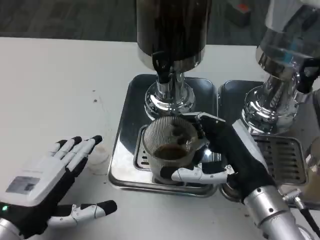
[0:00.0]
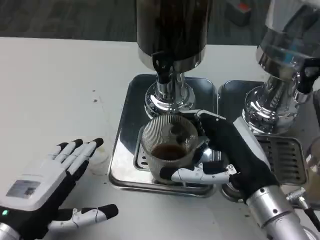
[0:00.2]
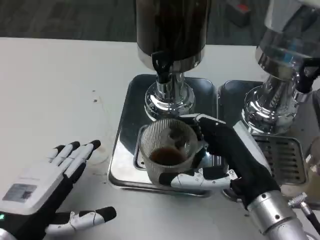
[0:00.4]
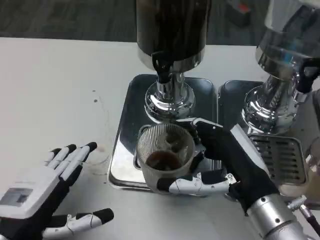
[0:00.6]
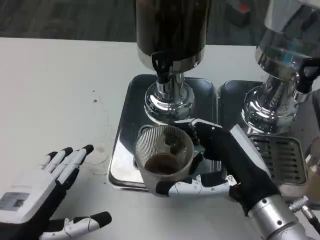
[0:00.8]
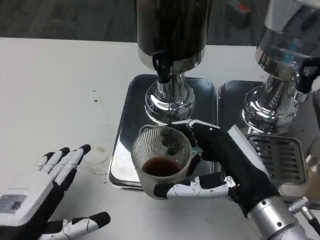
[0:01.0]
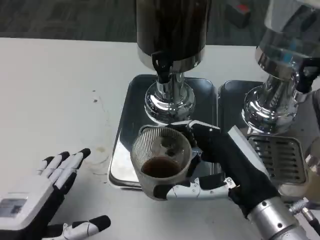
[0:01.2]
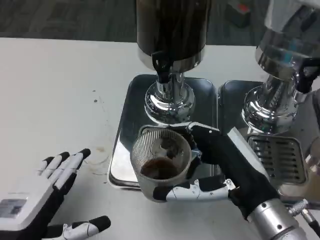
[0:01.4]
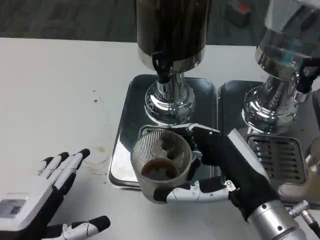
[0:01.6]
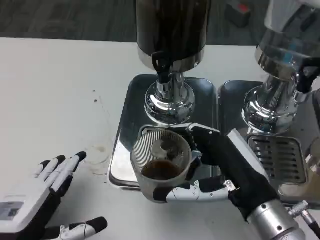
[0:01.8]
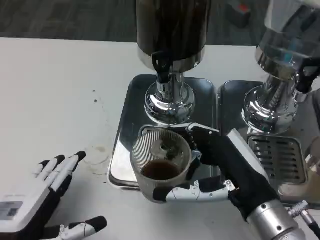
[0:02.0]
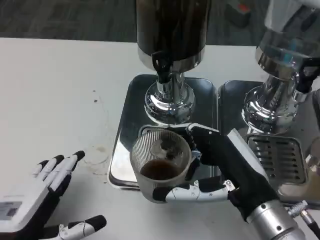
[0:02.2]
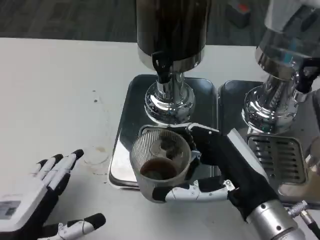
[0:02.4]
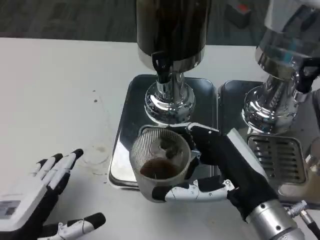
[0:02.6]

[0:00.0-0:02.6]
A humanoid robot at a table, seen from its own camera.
Task of the whole recording: Grasp the cup under the faucet to collect the drink, then remove the cup.
0:01.2 to 0:02.6: Neither hand changes place.

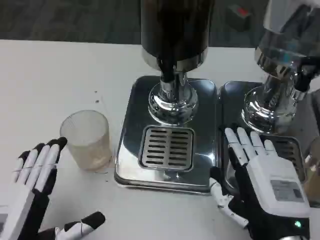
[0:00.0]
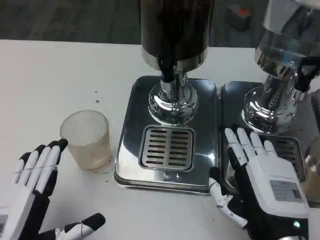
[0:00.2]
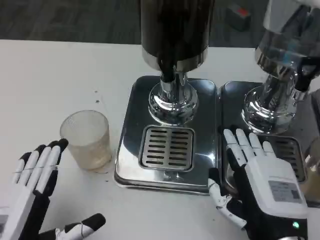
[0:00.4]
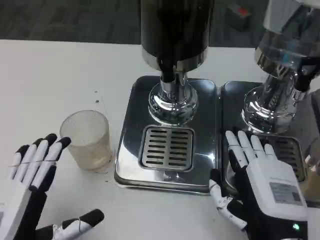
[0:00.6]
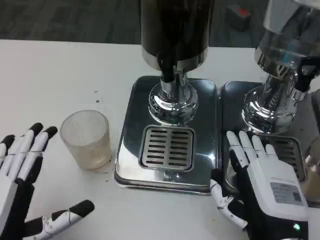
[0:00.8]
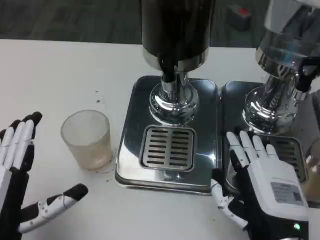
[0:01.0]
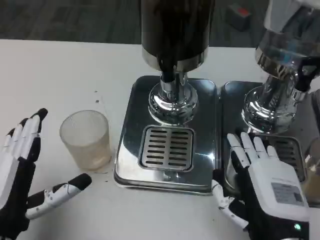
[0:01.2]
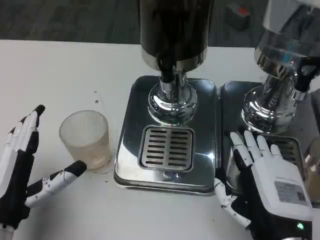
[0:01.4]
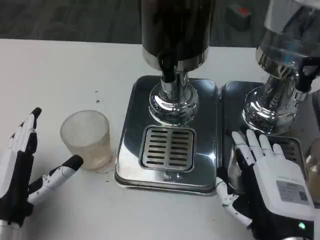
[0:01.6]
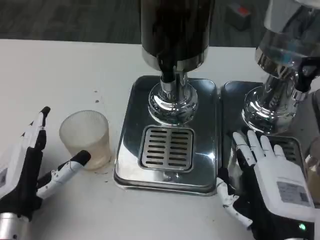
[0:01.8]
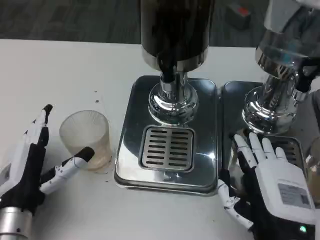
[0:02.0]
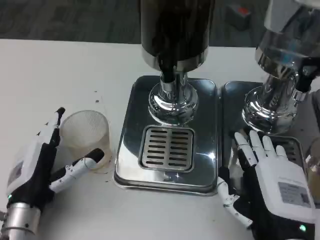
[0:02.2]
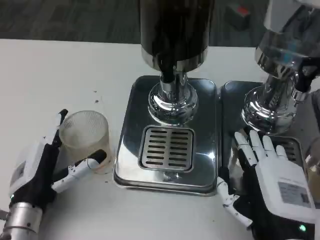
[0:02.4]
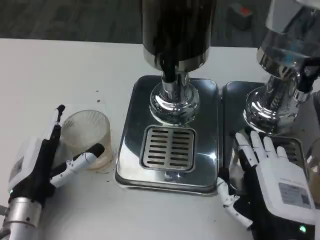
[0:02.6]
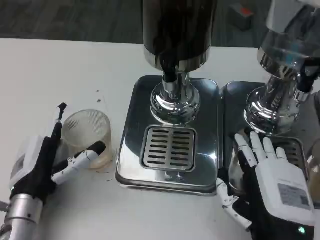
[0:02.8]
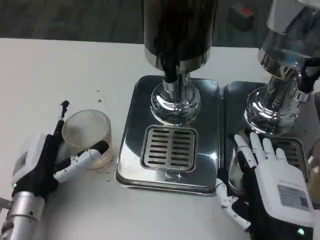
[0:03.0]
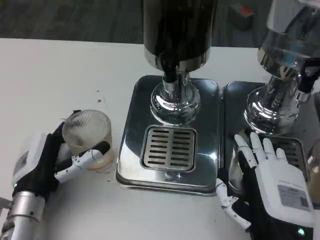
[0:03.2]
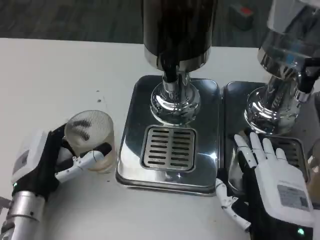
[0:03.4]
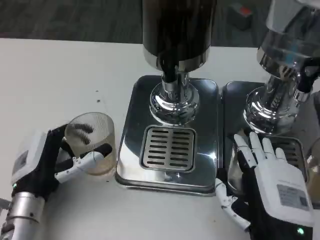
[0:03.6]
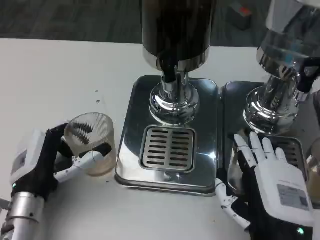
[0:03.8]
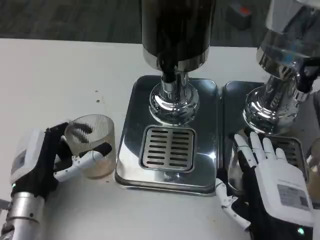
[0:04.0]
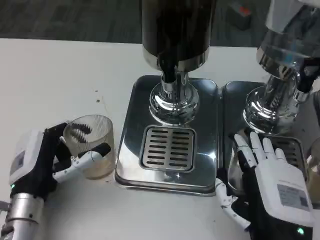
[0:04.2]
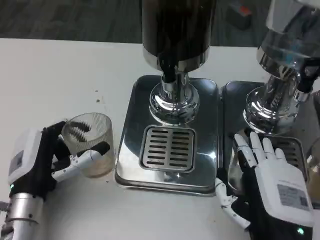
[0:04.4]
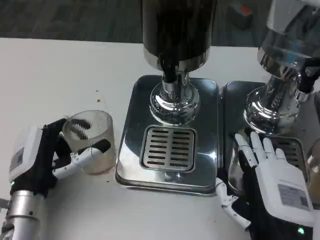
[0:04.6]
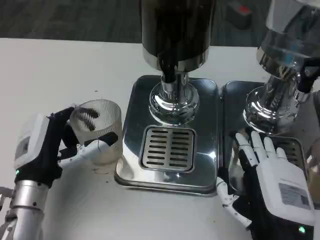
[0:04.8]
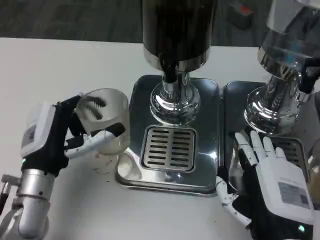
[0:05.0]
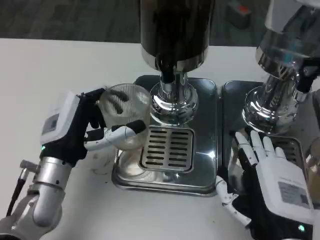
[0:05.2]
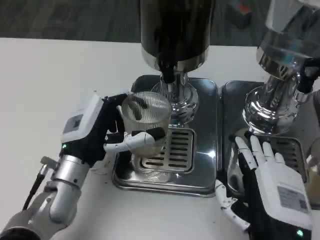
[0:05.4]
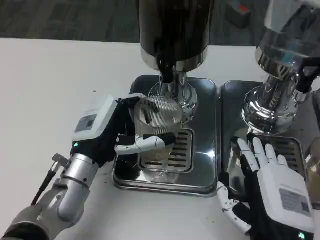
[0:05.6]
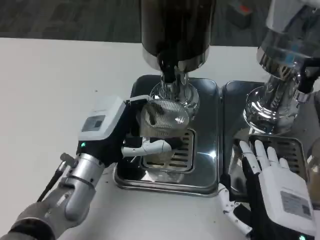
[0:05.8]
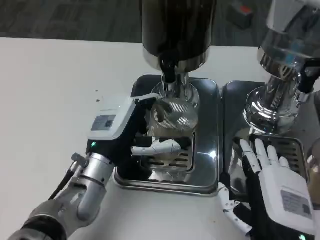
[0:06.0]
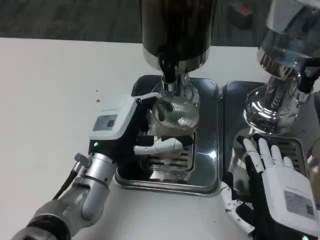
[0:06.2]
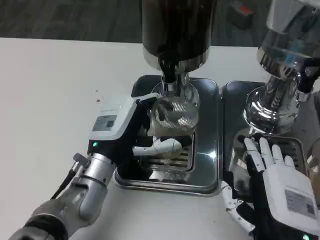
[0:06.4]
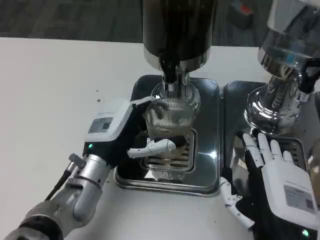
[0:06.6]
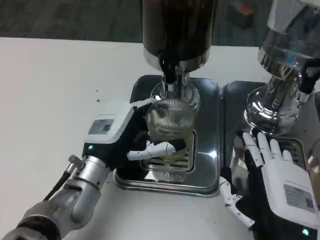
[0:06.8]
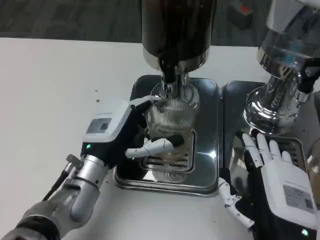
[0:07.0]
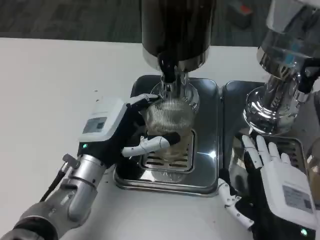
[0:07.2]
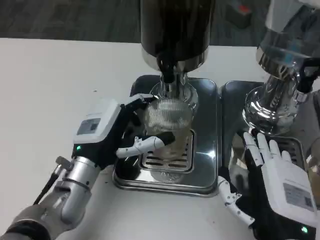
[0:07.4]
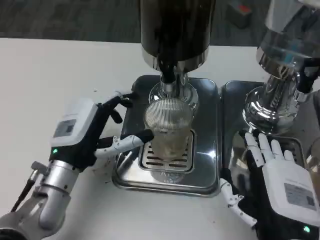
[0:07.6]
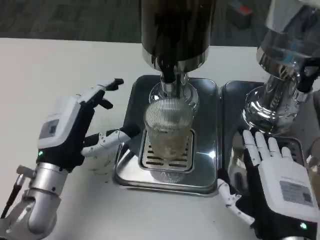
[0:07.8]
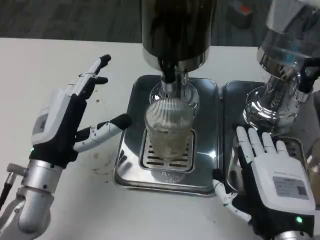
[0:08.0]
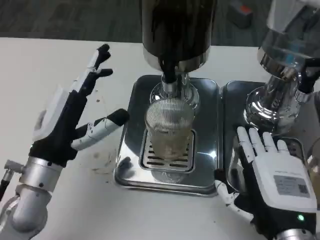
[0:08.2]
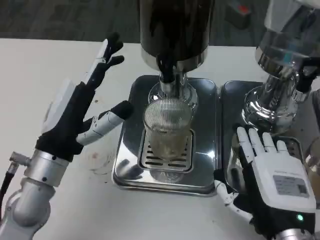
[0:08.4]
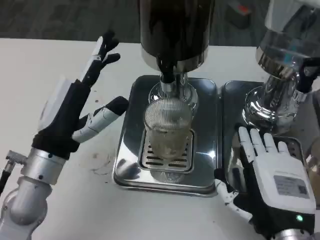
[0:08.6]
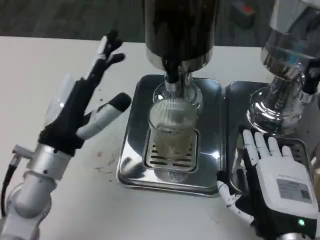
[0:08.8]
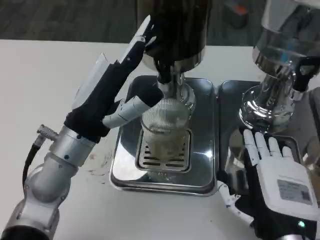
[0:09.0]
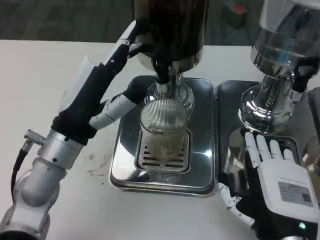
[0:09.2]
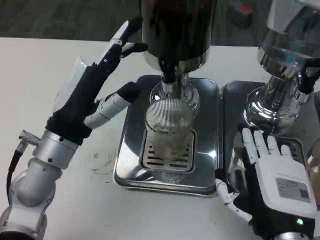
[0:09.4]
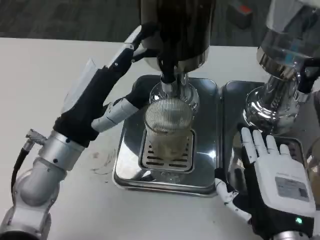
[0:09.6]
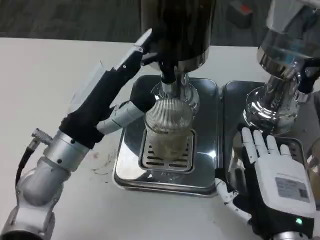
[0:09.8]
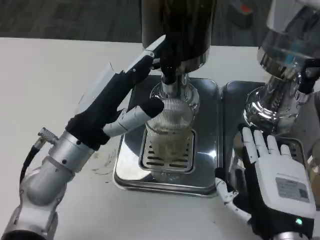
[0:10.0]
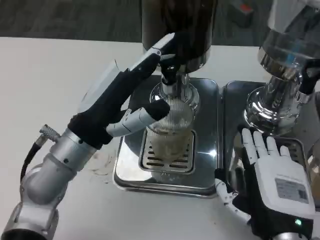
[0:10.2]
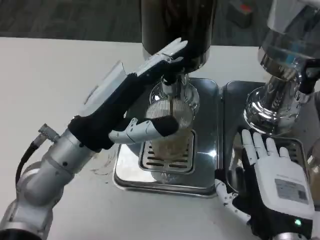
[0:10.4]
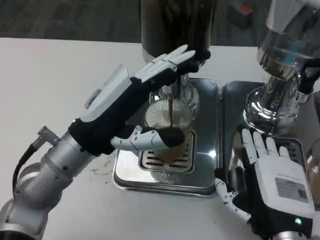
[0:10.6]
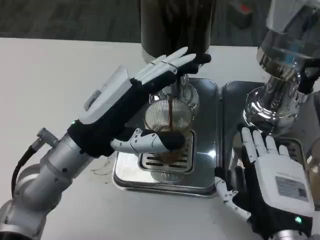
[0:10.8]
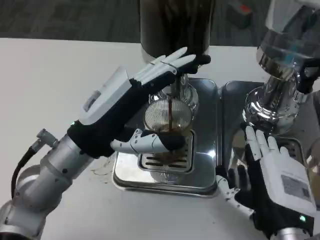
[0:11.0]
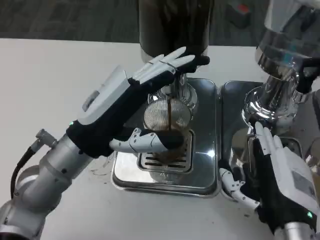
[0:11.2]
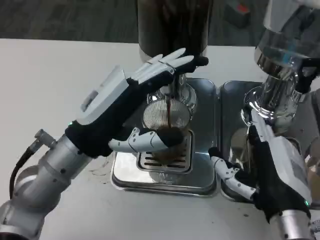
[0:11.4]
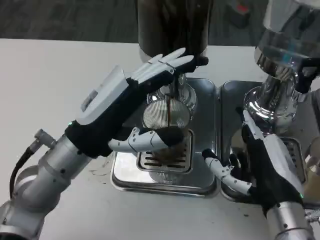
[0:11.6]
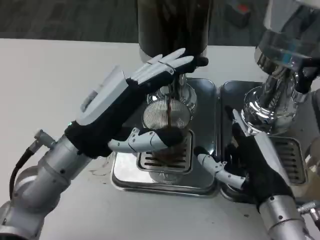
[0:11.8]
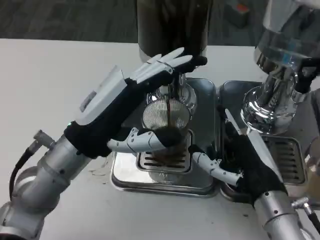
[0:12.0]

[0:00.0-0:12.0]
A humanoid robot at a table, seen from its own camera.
Task of the whole recording: Grasp the cup under the faucet to collect the drink, then remove the cup.
0:00.0 to 0:01.6: The left hand moves forward, some 5 cm.
0:01.6 to 0:03.0: The left hand ends up approximately 5 cm from where it was.
0:03.0 to 0:04.4: There are only small adjustments of the hands.
0:04.4 to 0:06.0: The left hand is displaced to the right and forward by approximately 10 cm.
0:06.0 to 0:07.6: The left hand is displaced to the left by about 5 cm.
0:07.6 to 0:09.0: The left hand moves upward, some 5 cm.
0:10.4 to 0:12.0: The right hand goes approximately 5 cm forward.

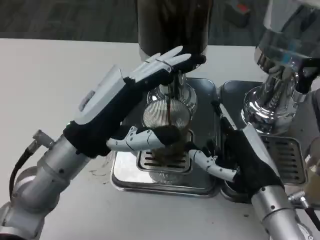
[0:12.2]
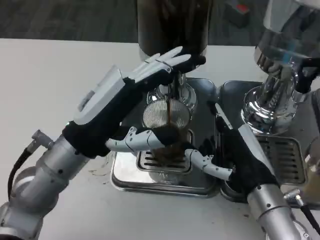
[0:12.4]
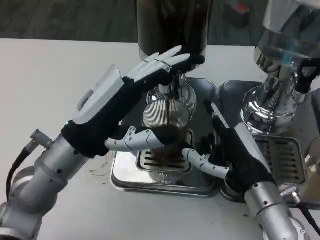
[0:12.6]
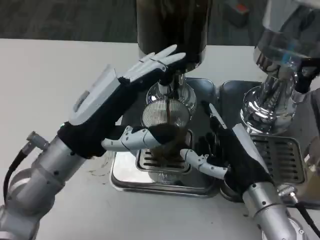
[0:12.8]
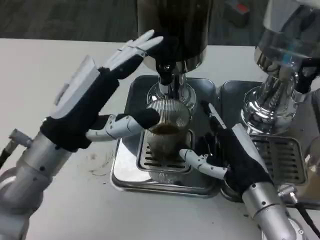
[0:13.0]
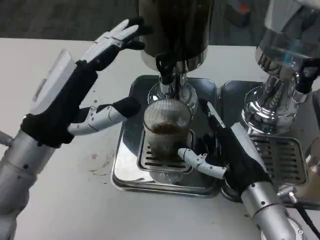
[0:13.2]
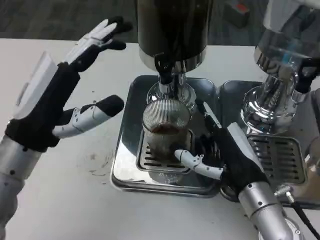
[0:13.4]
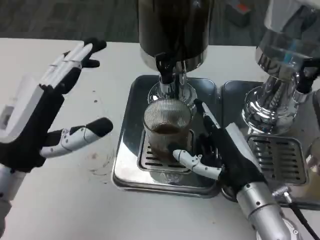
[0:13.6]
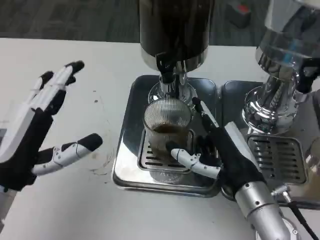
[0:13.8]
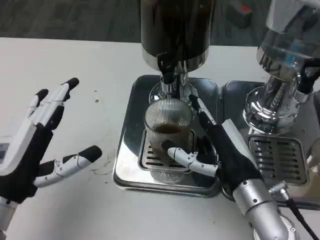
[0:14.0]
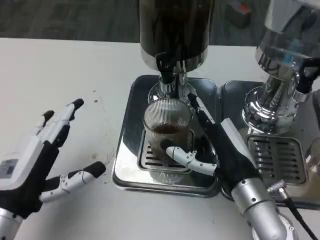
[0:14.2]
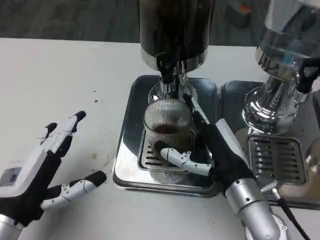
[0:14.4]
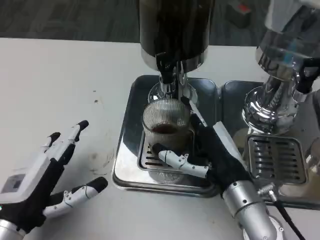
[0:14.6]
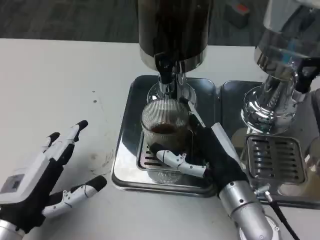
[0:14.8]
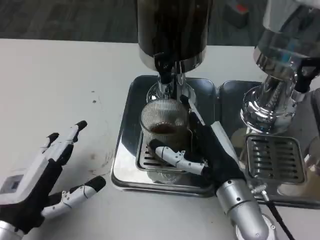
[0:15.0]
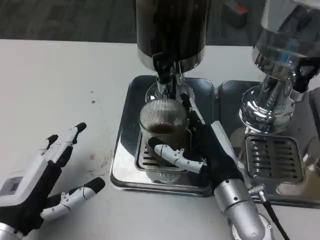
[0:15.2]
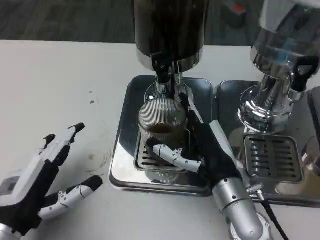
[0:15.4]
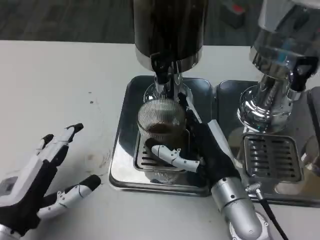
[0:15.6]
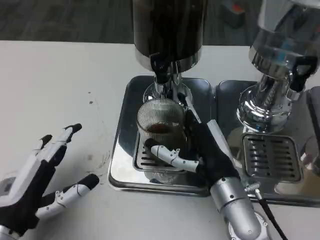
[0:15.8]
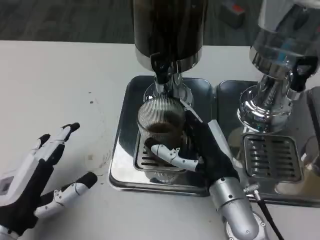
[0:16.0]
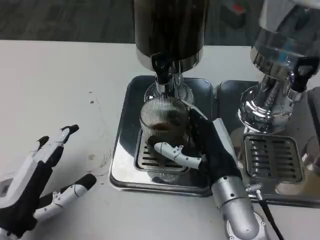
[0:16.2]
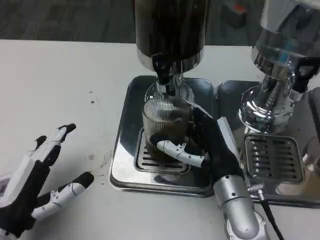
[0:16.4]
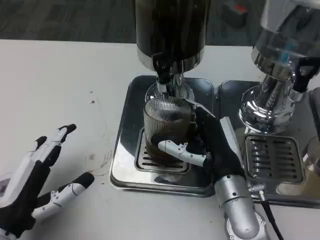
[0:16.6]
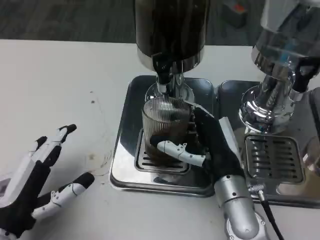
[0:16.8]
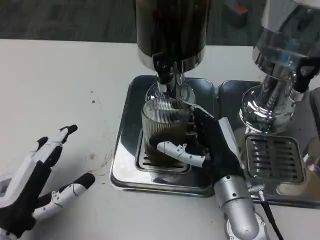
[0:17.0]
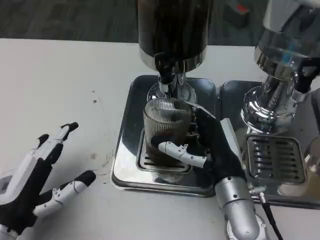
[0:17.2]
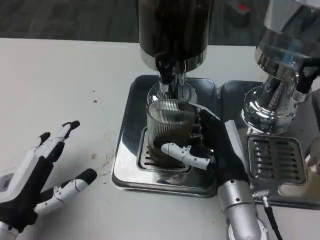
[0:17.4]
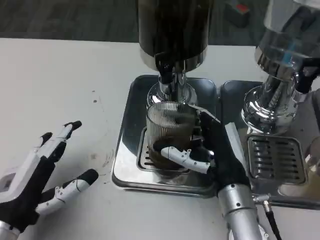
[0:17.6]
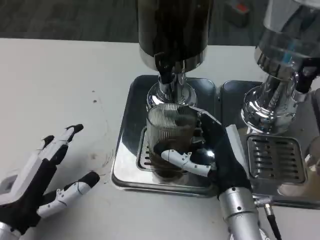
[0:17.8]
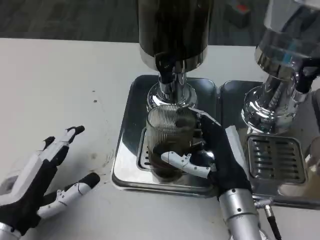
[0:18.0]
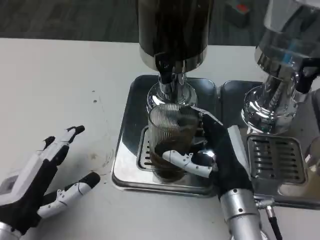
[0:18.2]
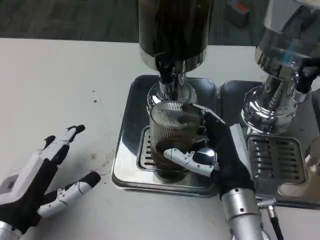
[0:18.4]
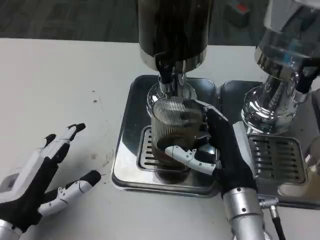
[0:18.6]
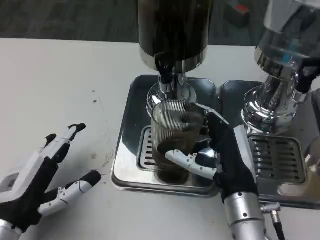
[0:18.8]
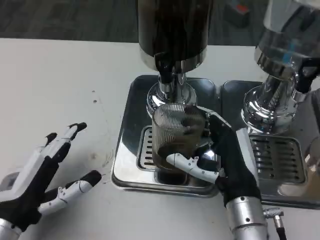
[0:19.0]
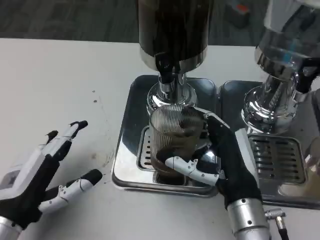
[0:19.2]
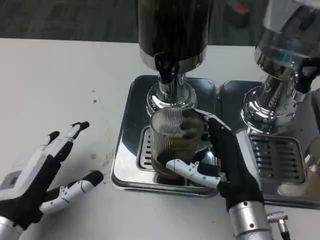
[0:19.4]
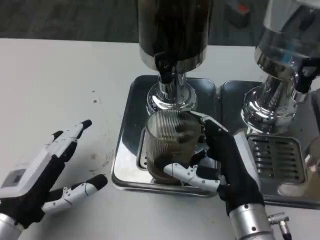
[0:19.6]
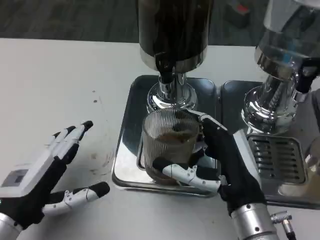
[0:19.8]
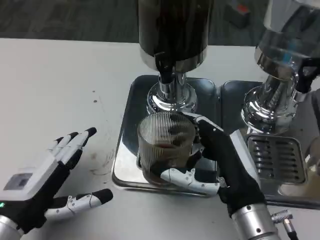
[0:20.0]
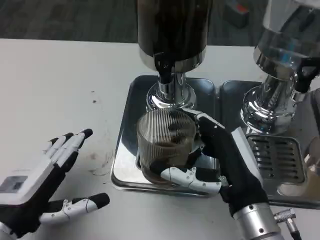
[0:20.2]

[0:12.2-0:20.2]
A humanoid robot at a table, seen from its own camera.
Task of the whole recording: Grasp the cup under the faucet to collect the drink, then remove the cup.
0:12.2 to 0:13.8: The left hand heads to the left and backward, covering approximately 10 cm.
0:13.8 to 0:15.4: The left hand shifts by about 5 cm.
0:15.4 to 0:18.6: The hands stay close to where they were, moving slightly.
